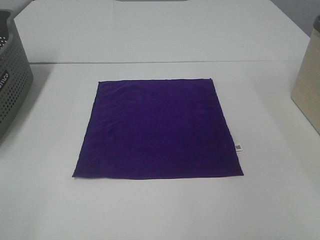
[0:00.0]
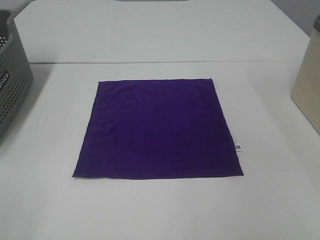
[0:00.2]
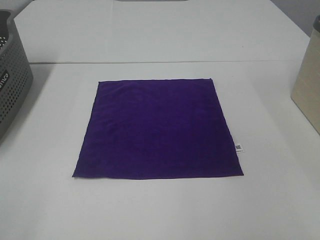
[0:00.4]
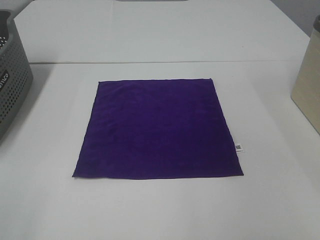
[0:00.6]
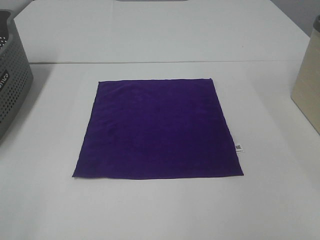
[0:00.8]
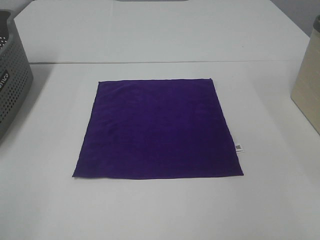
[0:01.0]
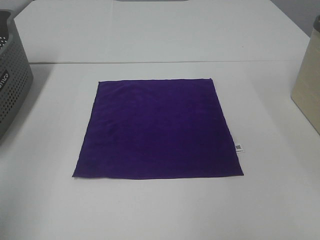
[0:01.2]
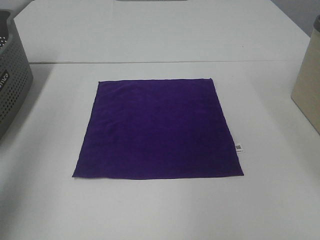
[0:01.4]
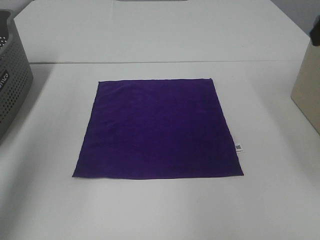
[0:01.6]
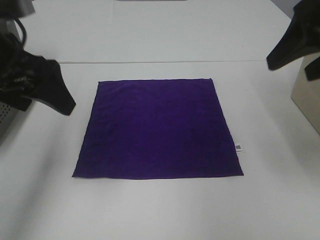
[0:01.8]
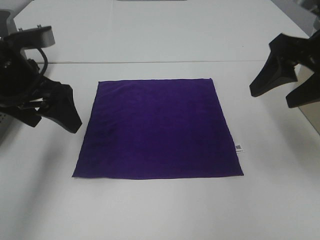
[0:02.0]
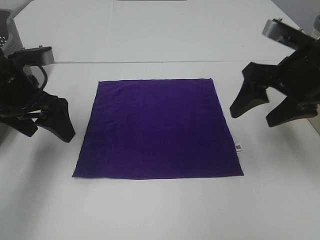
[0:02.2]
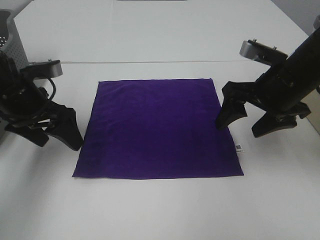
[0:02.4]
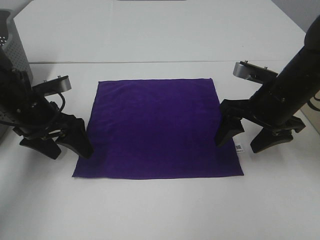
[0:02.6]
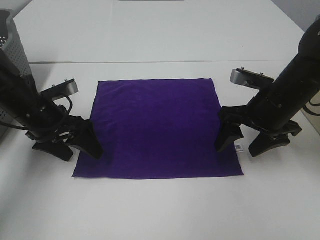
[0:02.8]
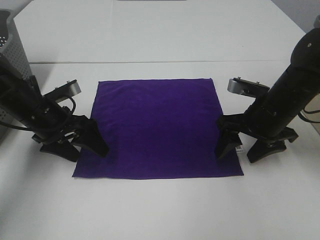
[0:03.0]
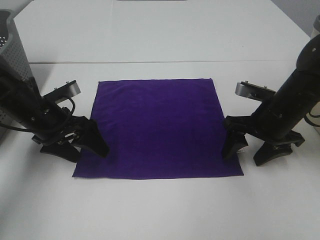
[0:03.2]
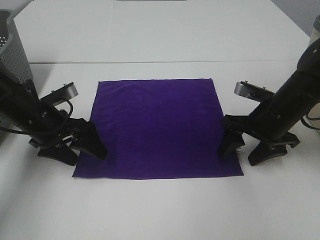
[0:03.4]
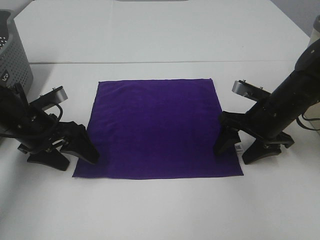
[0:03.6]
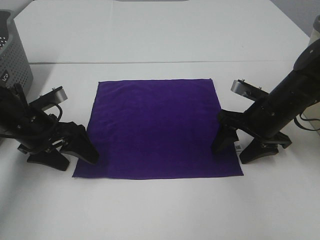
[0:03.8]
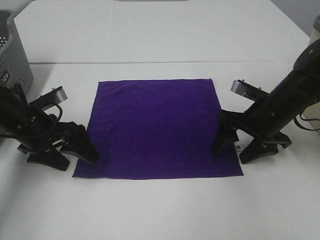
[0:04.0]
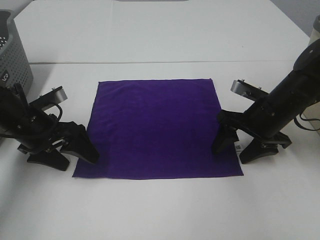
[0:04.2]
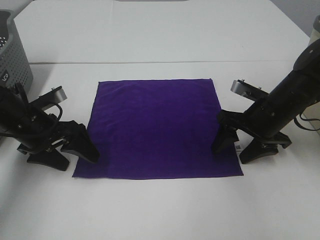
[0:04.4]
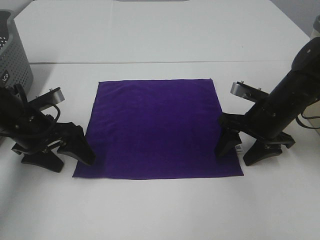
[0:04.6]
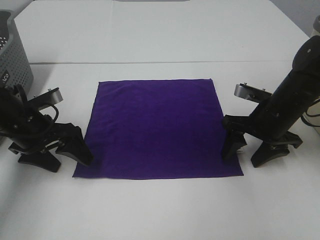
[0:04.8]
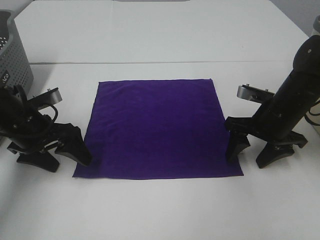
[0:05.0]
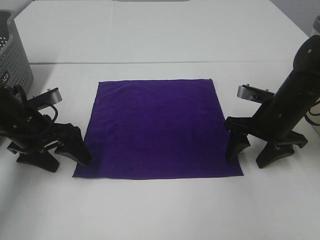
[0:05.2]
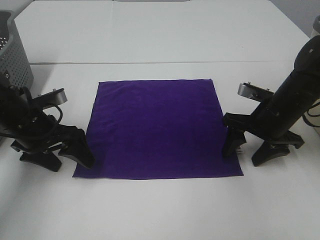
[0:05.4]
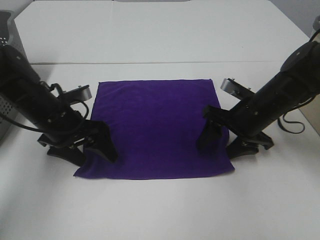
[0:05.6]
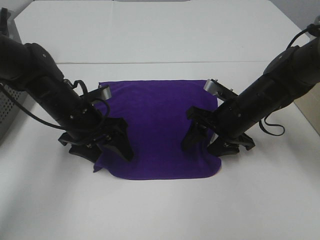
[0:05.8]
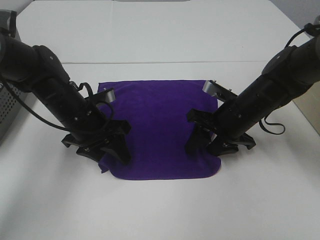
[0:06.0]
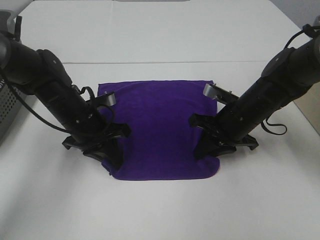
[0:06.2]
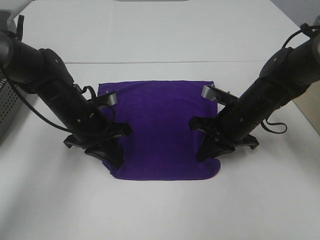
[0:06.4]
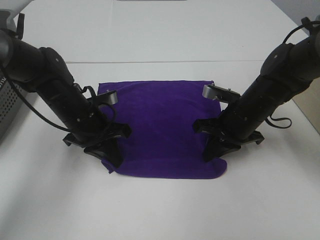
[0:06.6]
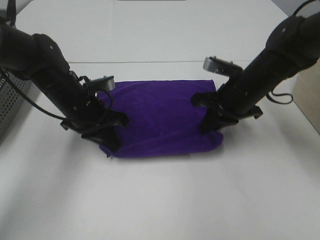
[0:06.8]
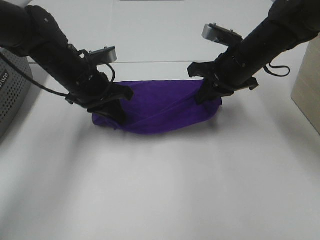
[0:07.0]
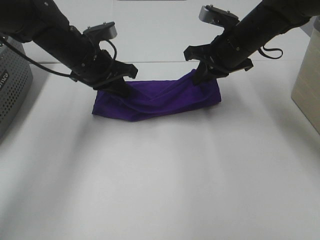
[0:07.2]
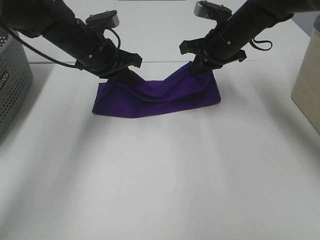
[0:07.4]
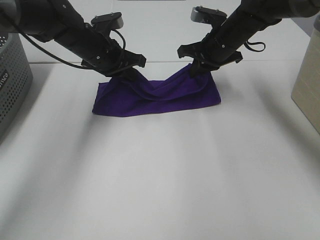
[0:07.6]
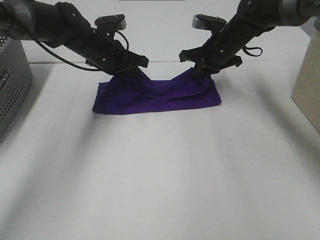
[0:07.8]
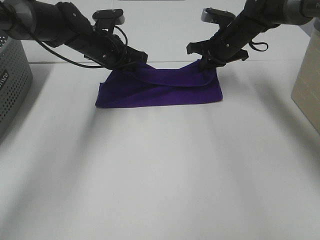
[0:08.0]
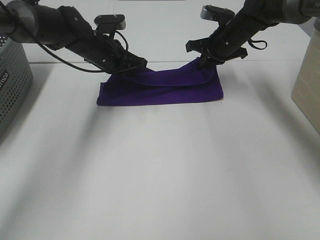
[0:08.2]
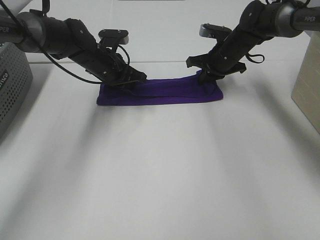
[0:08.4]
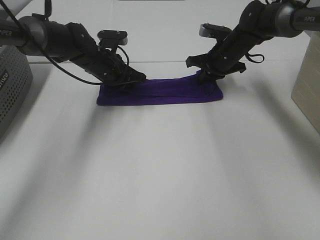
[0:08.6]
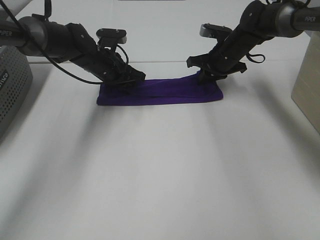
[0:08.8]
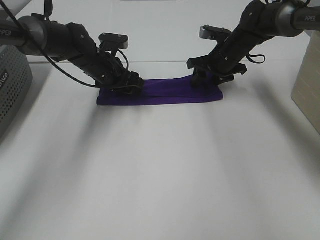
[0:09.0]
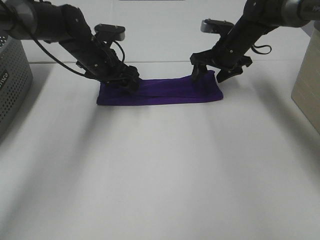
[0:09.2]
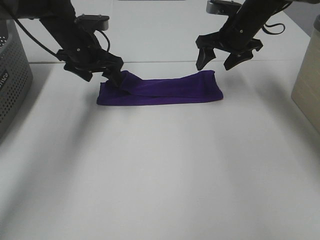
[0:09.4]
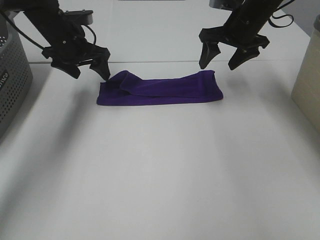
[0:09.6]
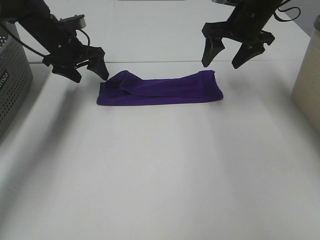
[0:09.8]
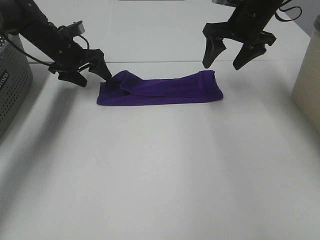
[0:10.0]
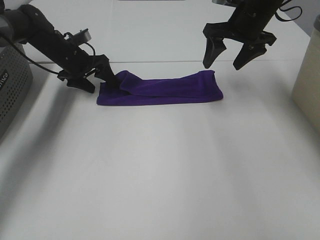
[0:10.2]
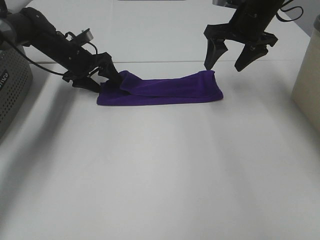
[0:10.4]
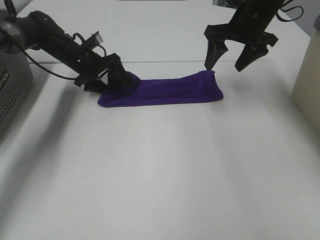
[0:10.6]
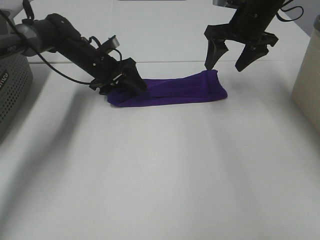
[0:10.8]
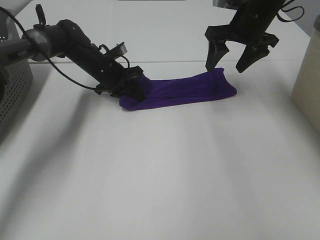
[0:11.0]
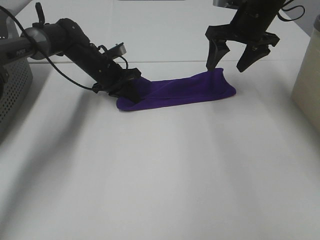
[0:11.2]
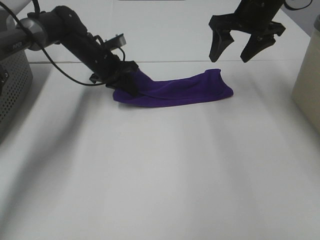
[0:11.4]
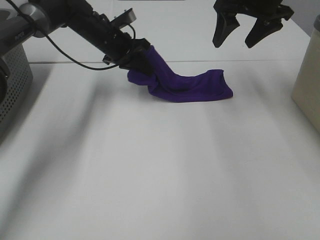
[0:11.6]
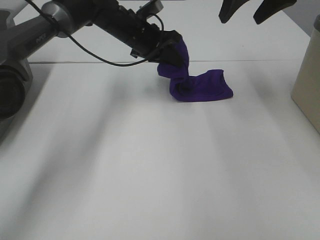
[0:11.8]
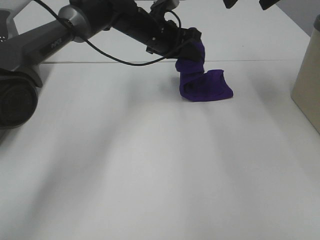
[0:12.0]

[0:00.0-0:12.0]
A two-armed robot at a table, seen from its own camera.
Task of the whole recording: Fold towels.
Step, 0:00.0 to 0:06.4: Left hand: grab the bottom left corner of purple towel.
Step, 0:00.0 to 0:06.4: Right hand: grab the bottom right corner of purple towel.
Step, 0:06.6 to 0:09.4: Left hand: fold the purple towel up.
Step, 0:06.6 to 0:09.4: Right hand: fold the purple towel up.
0:00.0 to 0:01.6: Both grippers move forward, about 25 cm.
0:01.6 to 0:03.0: The left gripper goes some 25 cm downward and forward; the right gripper goes roughly 25 cm downward.
0:03.0 to 0:04.4: The grippers stay close to where they were, moving slightly.
0:04.4 to 0:06.0: The right gripper shifts by about 5 cm; the left gripper travels to the right by some 10 cm, and closes.
0:06.0 to 0:07.6: The two grippers go some 15 cm forward and upward. The right gripper closes, while the left gripper closes.
0:07.6 to 0:09.0: The right gripper moves roughly 5 cm, and opens. The left gripper moves roughly 5 cm, and opens.
0:09.0 to 0:10.4: The right gripper heads upward, covering some 10 cm. The left gripper travels to the left and forward by some 10 cm.
0:10.4 to 0:12.0: The right gripper travels upward by roughly 15 cm. Meanwhile the left gripper moves to the right, approximately 20 cm, and closes up.

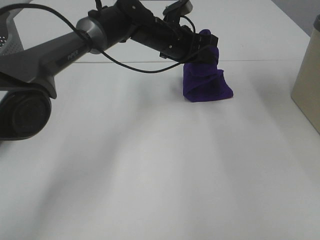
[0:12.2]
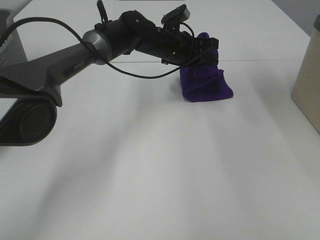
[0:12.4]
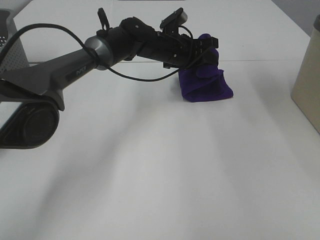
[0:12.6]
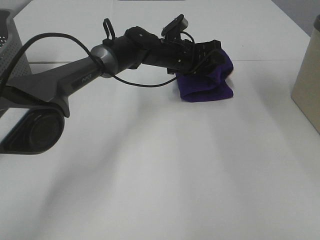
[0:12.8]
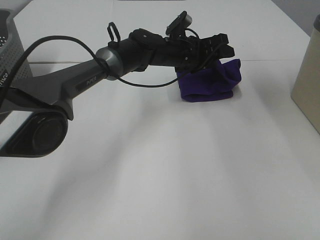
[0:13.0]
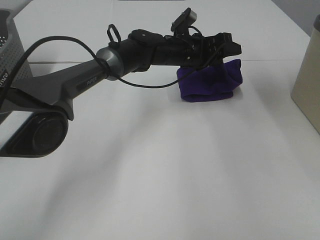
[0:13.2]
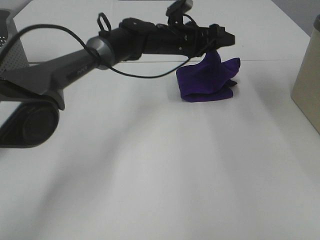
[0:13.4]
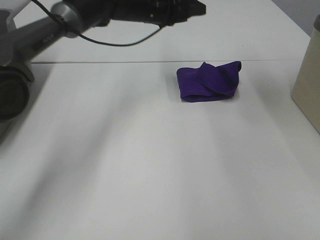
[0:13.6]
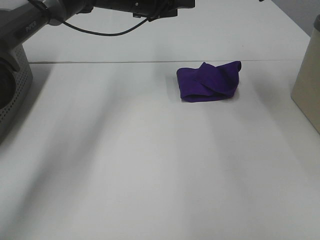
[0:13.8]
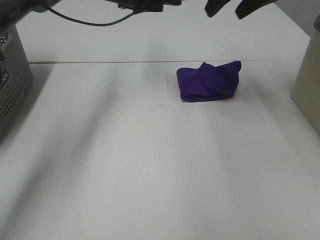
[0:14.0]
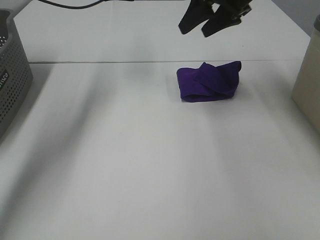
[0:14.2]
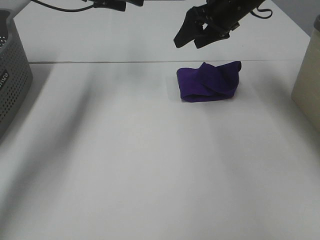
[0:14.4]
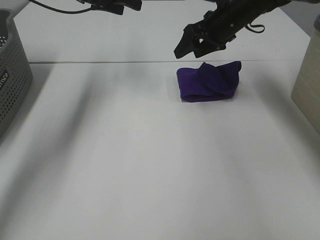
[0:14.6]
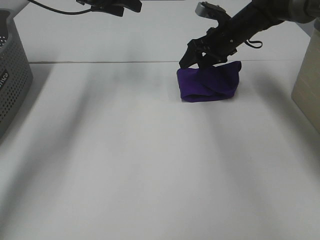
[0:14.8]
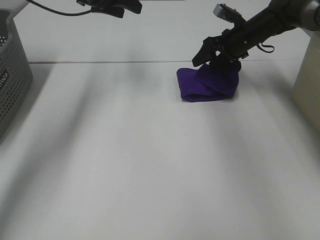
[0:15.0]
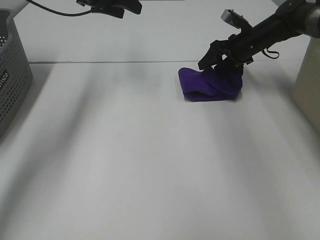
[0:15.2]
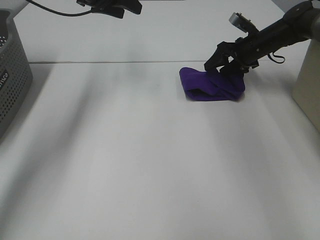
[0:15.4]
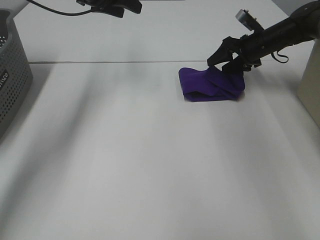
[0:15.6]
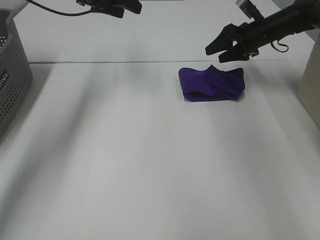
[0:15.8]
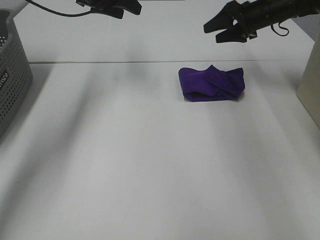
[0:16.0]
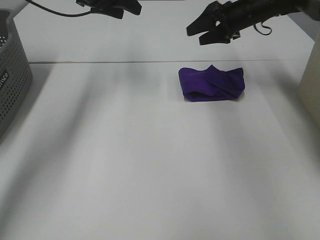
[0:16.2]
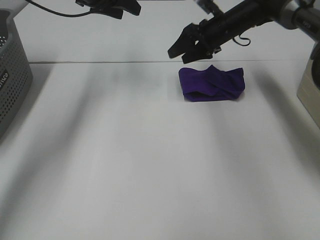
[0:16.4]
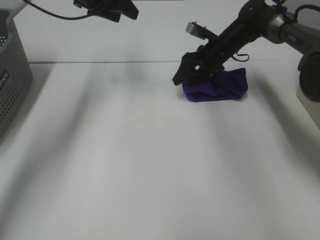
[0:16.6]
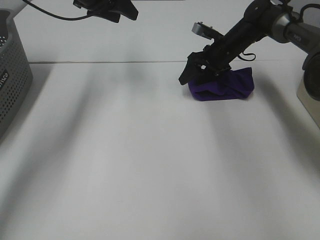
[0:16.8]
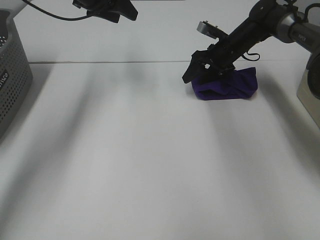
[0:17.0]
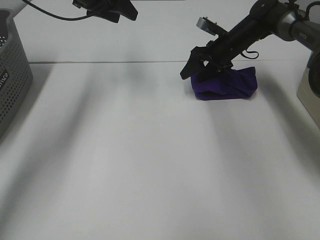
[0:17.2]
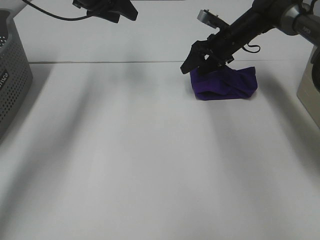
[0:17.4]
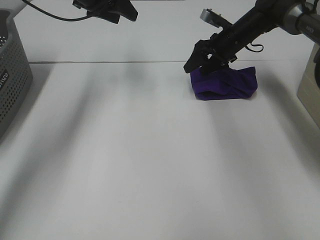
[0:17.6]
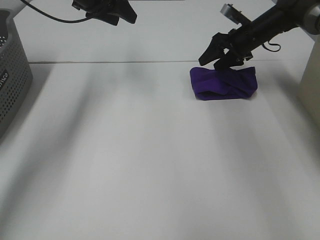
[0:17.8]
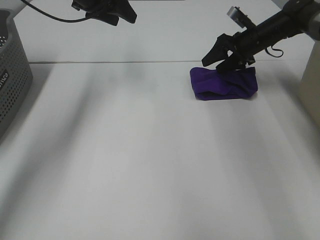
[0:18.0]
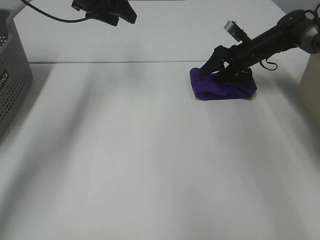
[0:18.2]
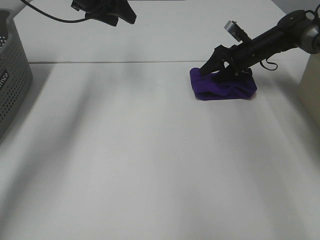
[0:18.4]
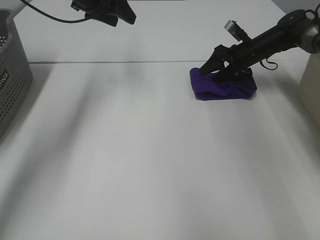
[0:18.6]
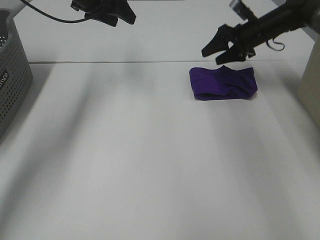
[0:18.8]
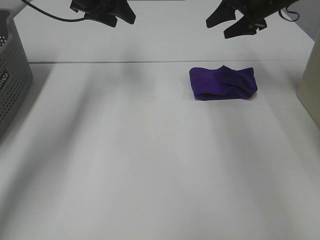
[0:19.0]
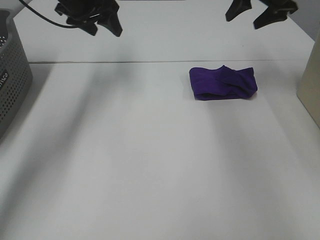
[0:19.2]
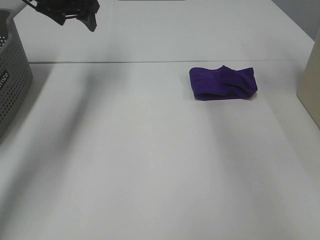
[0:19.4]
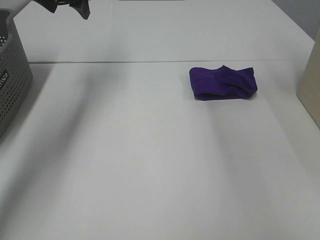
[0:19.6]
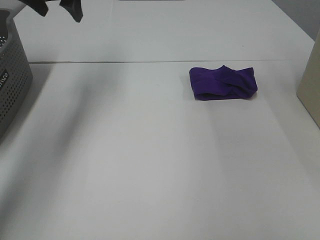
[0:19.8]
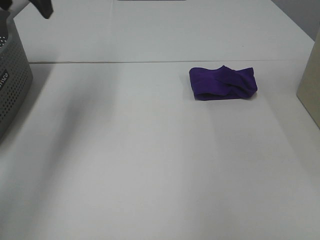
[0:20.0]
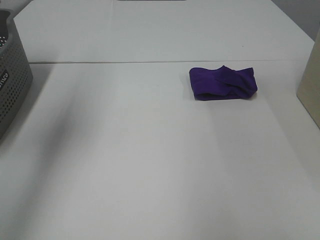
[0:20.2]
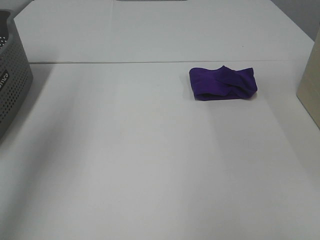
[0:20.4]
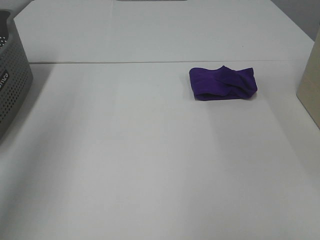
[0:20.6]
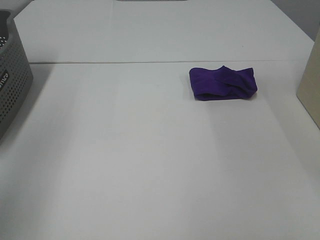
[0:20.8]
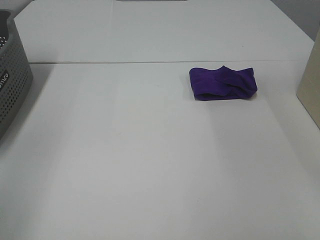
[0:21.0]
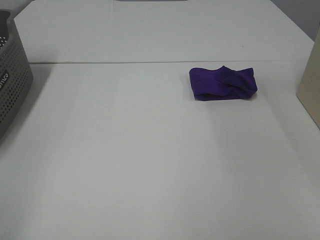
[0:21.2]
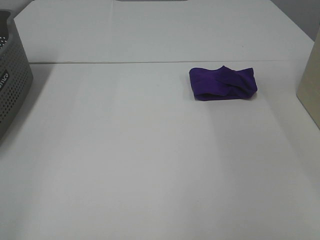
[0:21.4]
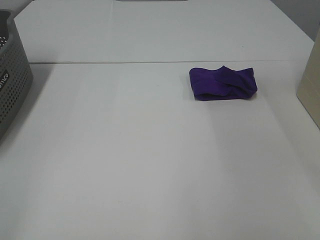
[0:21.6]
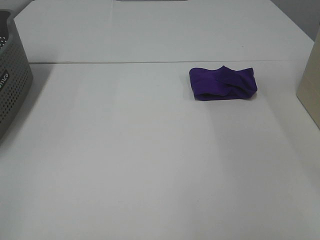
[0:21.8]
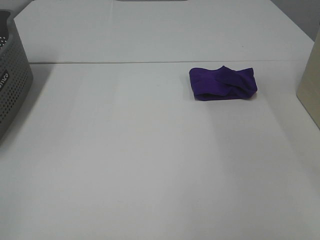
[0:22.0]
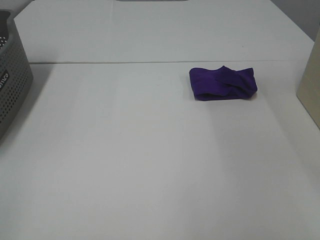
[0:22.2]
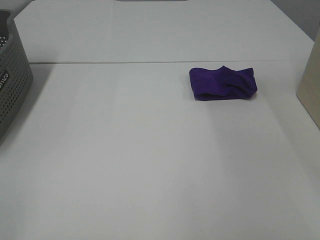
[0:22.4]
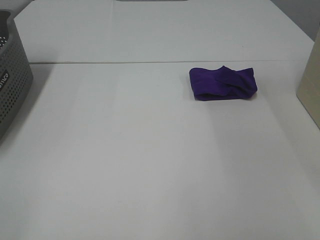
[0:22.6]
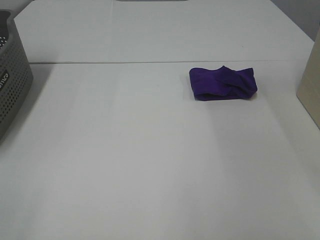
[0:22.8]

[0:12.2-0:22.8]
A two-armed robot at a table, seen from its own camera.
Task of the whole recording: Fold towels.
Step, 0:13.0 to 0:18.6: Right hand: adjust the purple towel.
0:12.2 to 0:13.8: The left gripper goes some 10 cm to the left and upward, and opens up.
0:13.8 to 0:15.2: The left gripper shifts approximately 10 cm to the left, while the right gripper travels downward and forward by roughly 30 cm.
0:15.2 to 0:16.8: The right gripper moves to the left, approximately 5 cm.
0:16.8 to 0:18.2: The right gripper shifts roughly 5 cm to the right.
0:18.2 to 0:19.8: The right gripper moves upward and backward, approximately 35 cm. Meanwhile the left gripper goes about 10 cm to the left and upward.
0:19.8 to 0:21.2: The left gripper travels backward by approximately 40 cm.
